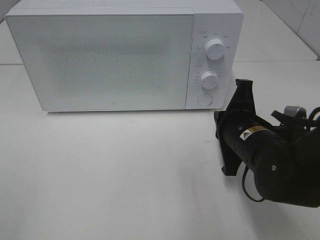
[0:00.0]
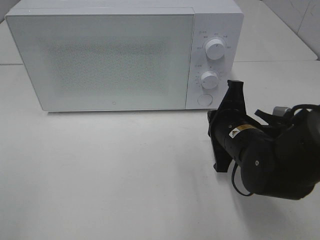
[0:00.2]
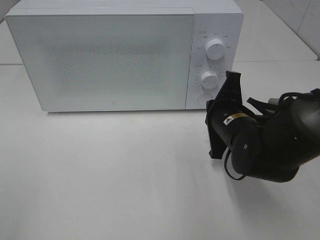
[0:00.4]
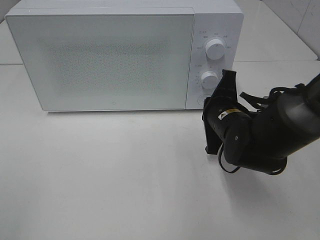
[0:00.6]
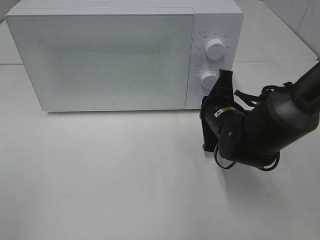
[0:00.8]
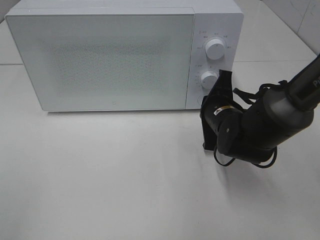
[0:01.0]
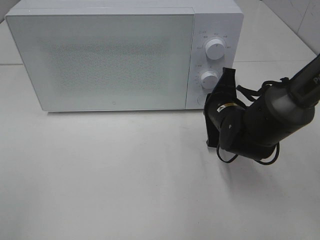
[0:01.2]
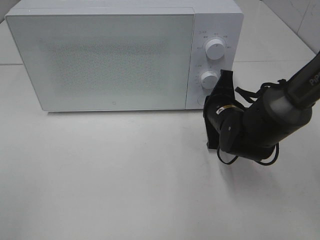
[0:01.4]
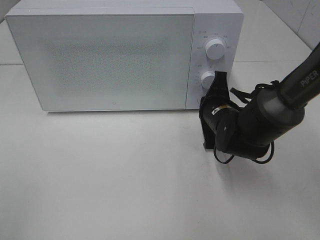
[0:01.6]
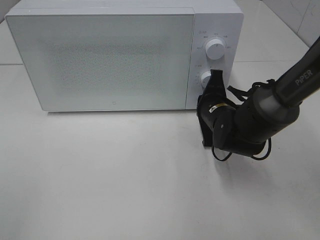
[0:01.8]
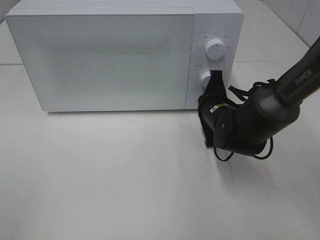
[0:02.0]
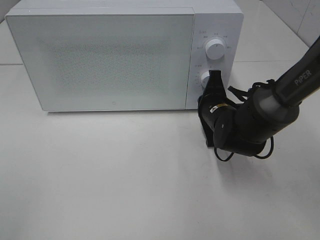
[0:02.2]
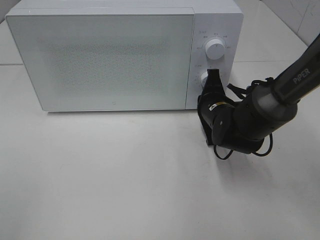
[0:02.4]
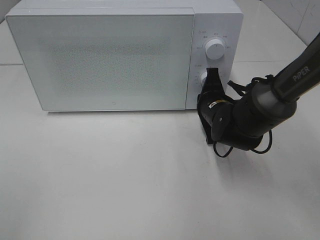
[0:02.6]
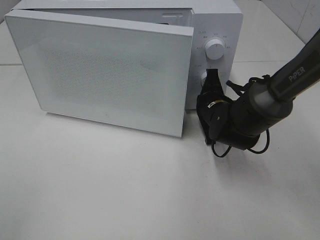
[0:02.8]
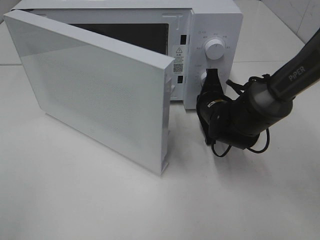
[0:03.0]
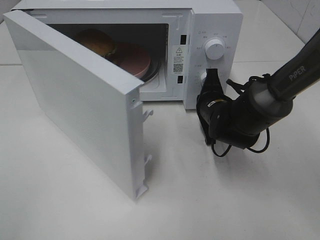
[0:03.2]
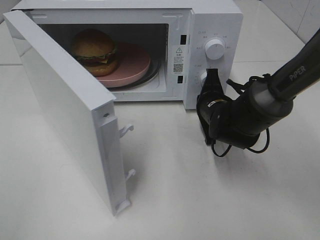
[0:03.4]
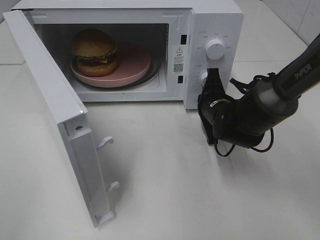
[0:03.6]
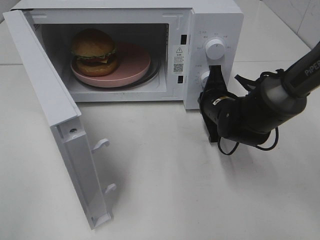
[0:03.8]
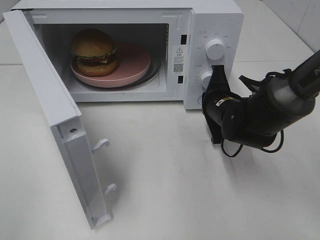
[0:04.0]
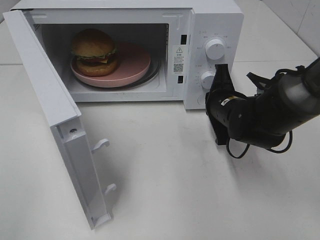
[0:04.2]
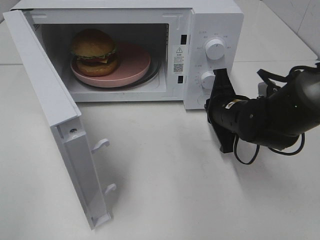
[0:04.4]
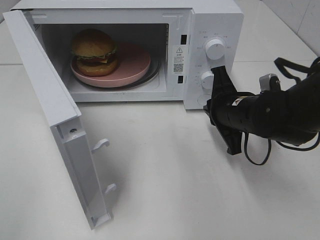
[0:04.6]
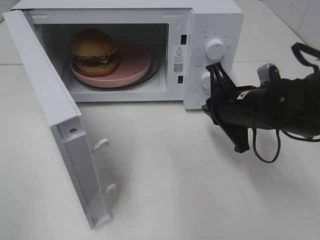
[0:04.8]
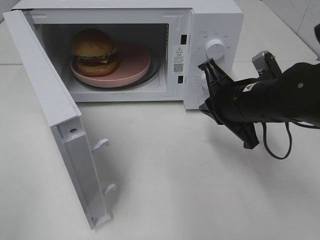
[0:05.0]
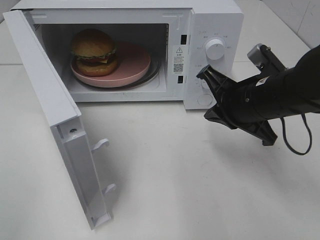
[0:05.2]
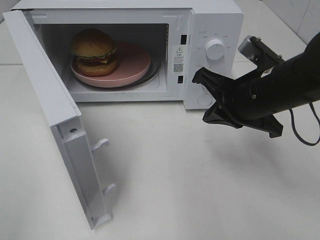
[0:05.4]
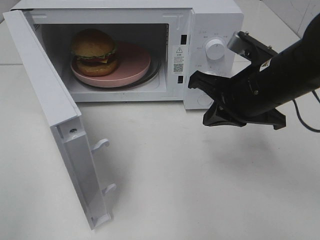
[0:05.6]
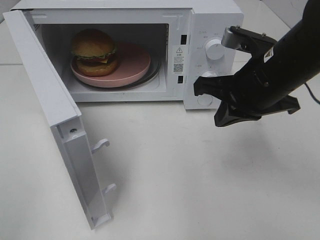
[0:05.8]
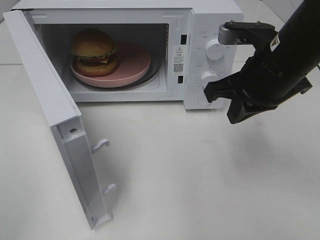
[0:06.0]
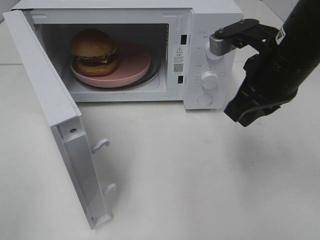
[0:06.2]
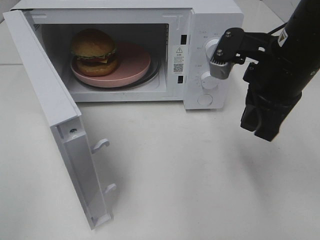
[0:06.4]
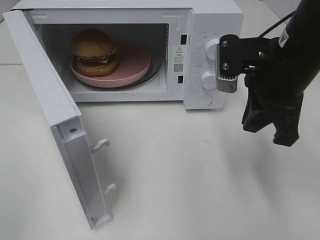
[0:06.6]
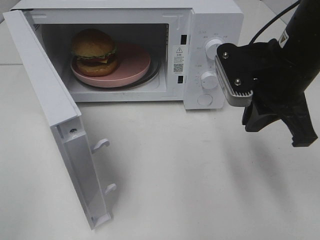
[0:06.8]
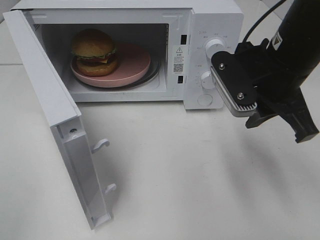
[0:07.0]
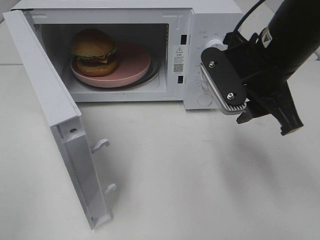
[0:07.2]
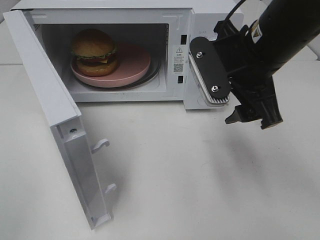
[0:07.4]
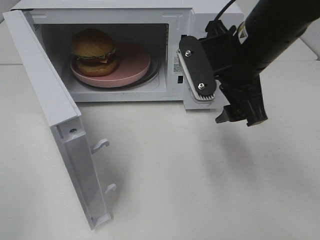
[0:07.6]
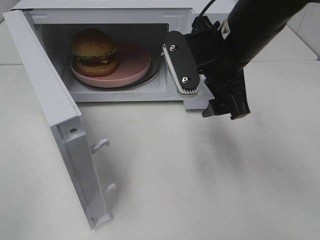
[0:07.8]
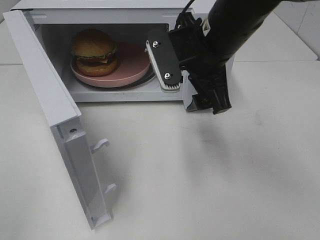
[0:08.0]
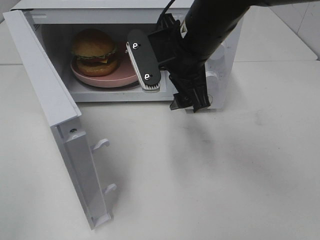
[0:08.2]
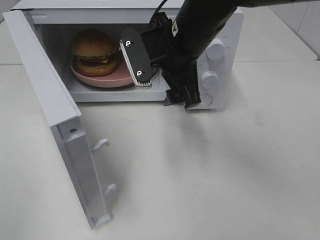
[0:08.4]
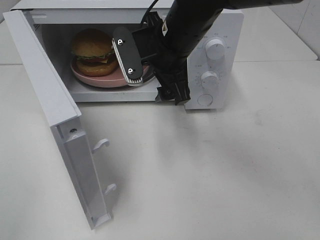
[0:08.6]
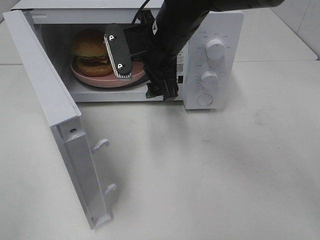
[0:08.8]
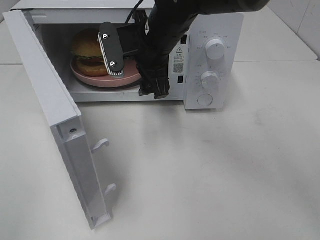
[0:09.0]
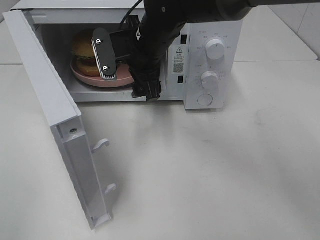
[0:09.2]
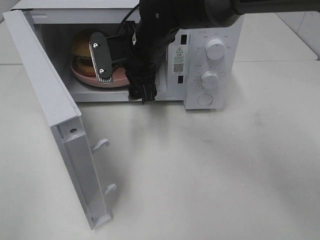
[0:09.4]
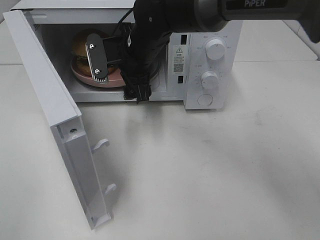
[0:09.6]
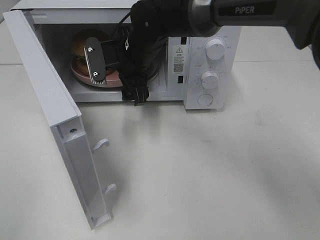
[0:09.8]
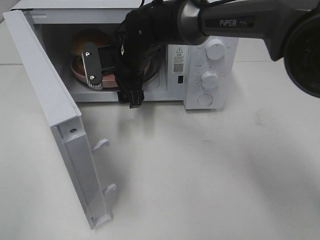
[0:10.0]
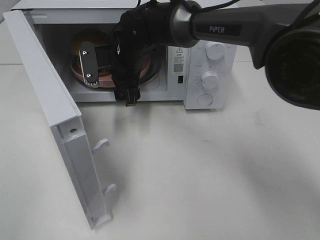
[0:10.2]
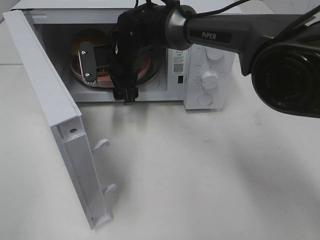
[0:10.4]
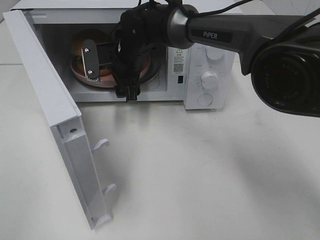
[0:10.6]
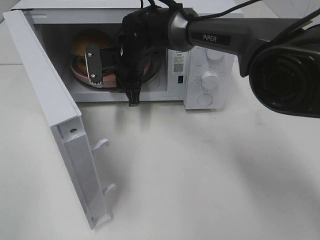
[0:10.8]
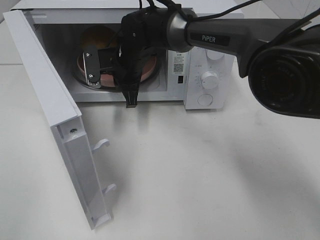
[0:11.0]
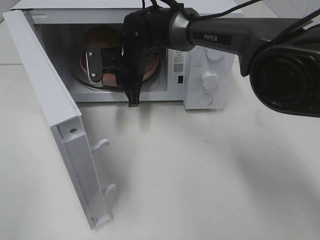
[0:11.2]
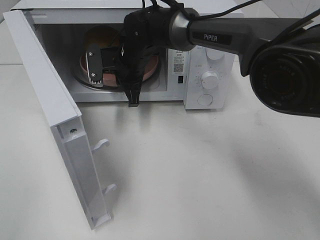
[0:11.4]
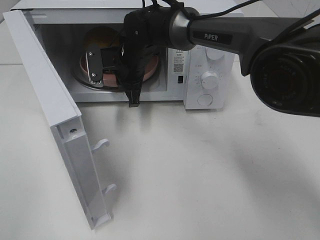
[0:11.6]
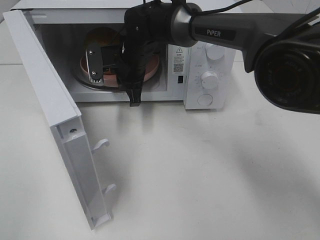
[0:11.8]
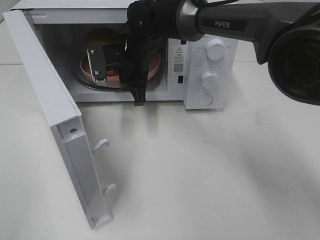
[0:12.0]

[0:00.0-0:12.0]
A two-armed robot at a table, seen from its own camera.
Task of the whole recording: Heat the burger.
Step, 0:00.0 to 0:04.4: Right hand: press the switch.
Step, 0:04.6 to 0:10.8: Right hand: grab the plate with the hamburger.
0:00.0 to 0:01.6: The right gripper goes about 10 cm forward.
0:03.0 to 0:04.4: The right gripper ends up approximately 5 cm from where it was.
0:04.4 to 0:06.0: The right gripper heads upward, covering roughly 15 cm.
0:06.0 to 0:07.6: The right gripper opens.
0:07.6 to 0:09.0: The right gripper moves to the left and forward, approximately 15 cm.
0:09.0 to 0:10.4: The right gripper is displaced forward, downward and to the left by about 10 cm.
0:10.4 to 0:12.0: The right gripper closes up.

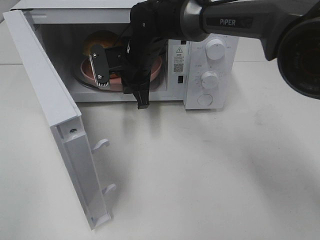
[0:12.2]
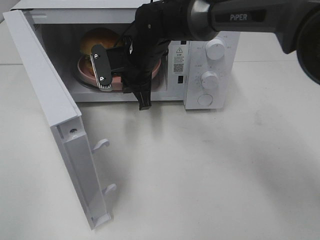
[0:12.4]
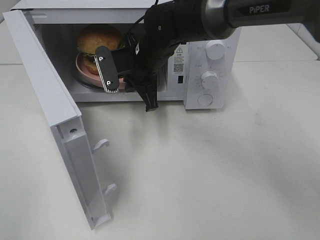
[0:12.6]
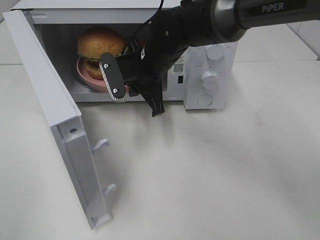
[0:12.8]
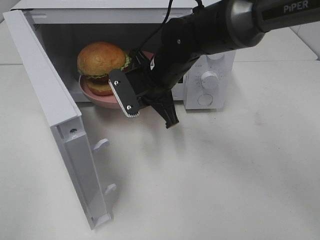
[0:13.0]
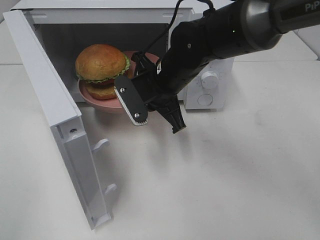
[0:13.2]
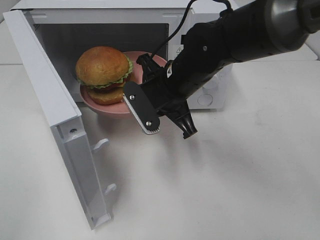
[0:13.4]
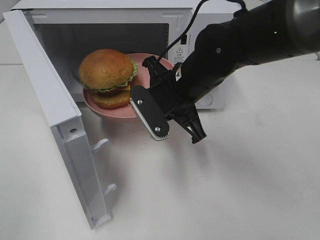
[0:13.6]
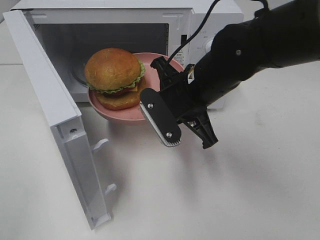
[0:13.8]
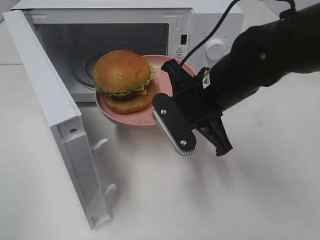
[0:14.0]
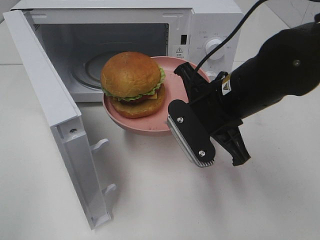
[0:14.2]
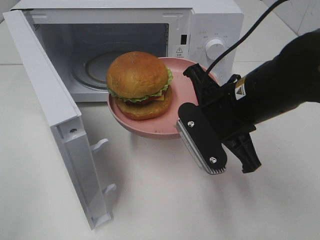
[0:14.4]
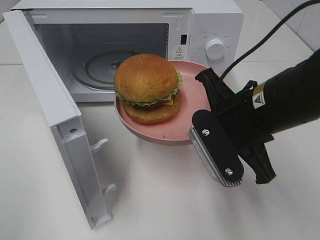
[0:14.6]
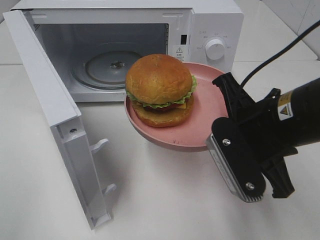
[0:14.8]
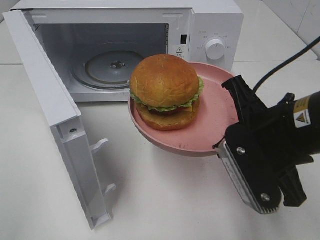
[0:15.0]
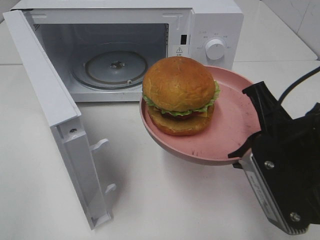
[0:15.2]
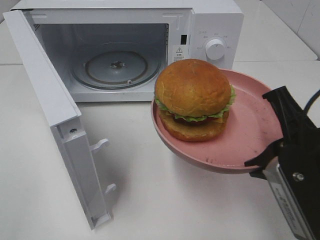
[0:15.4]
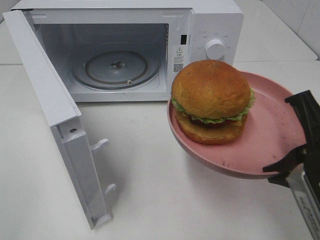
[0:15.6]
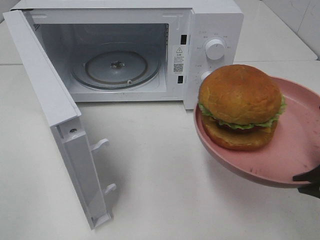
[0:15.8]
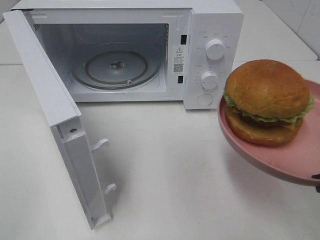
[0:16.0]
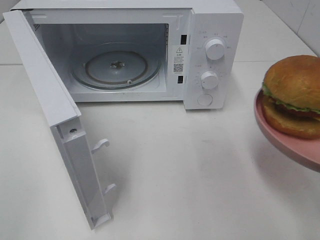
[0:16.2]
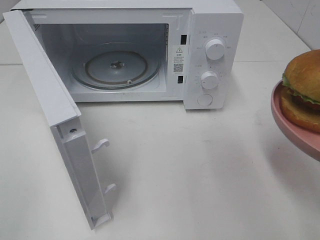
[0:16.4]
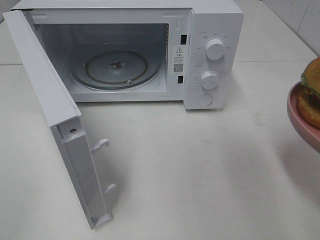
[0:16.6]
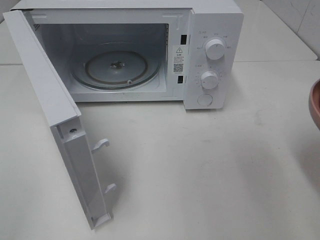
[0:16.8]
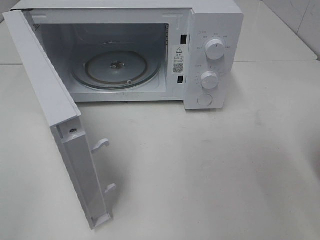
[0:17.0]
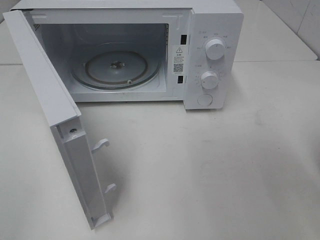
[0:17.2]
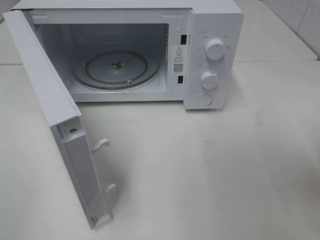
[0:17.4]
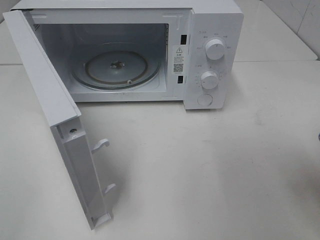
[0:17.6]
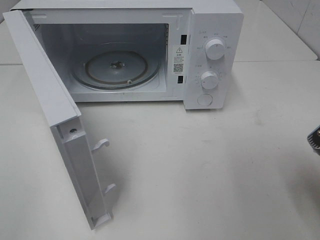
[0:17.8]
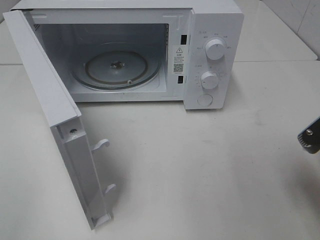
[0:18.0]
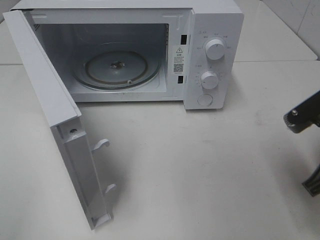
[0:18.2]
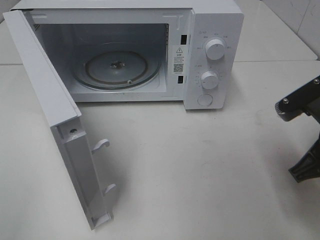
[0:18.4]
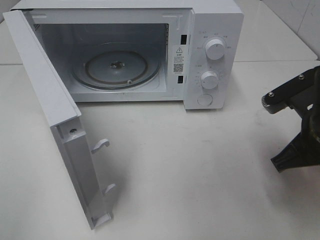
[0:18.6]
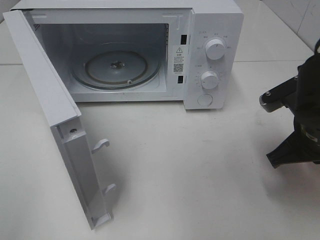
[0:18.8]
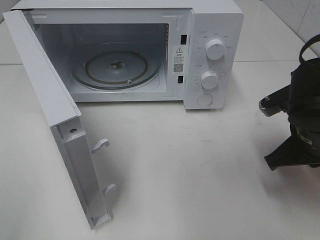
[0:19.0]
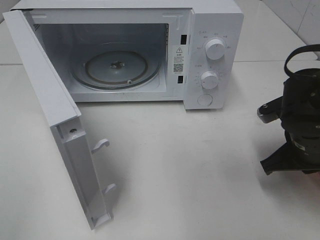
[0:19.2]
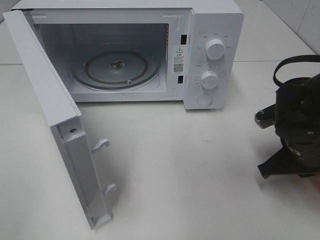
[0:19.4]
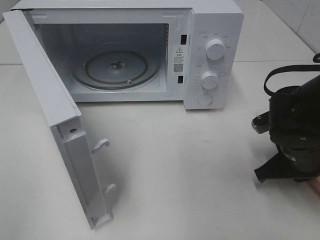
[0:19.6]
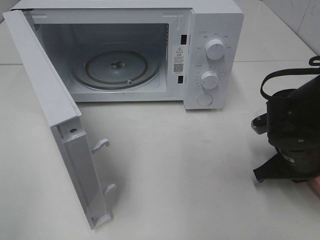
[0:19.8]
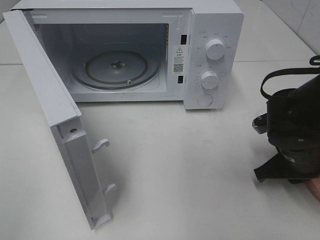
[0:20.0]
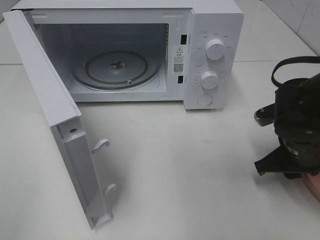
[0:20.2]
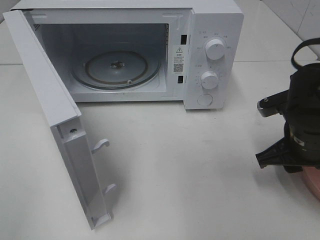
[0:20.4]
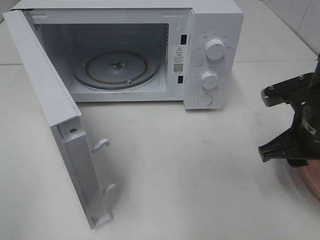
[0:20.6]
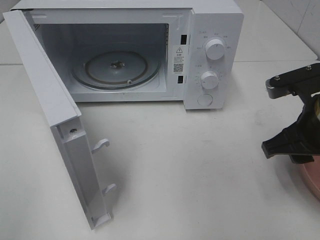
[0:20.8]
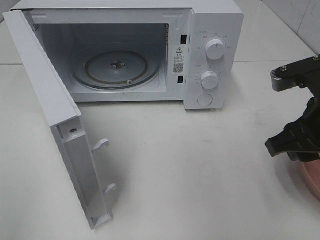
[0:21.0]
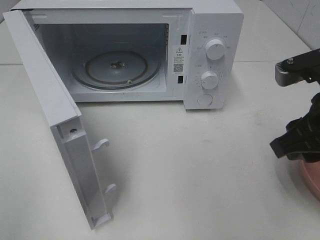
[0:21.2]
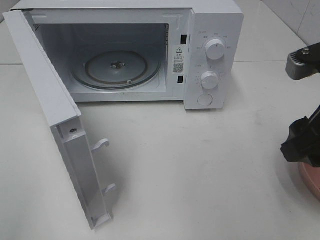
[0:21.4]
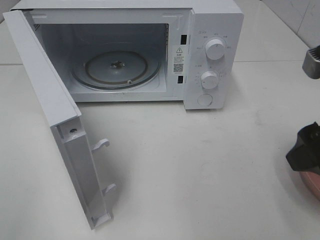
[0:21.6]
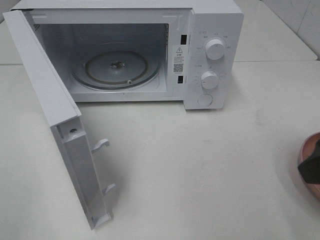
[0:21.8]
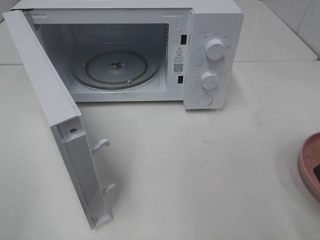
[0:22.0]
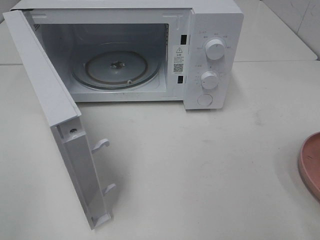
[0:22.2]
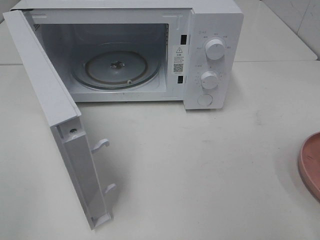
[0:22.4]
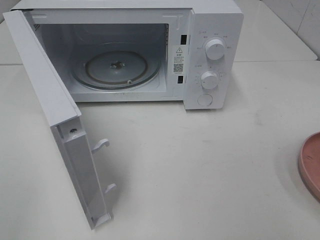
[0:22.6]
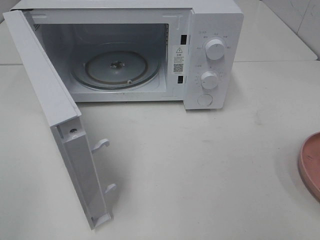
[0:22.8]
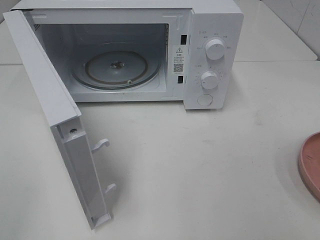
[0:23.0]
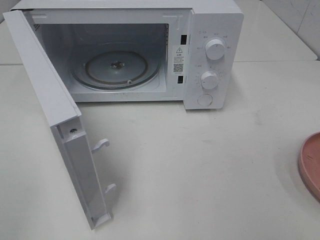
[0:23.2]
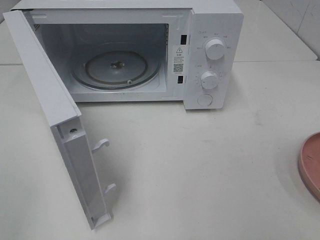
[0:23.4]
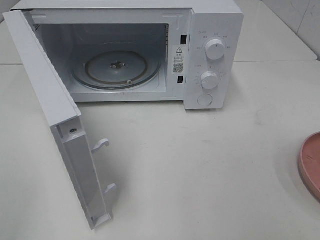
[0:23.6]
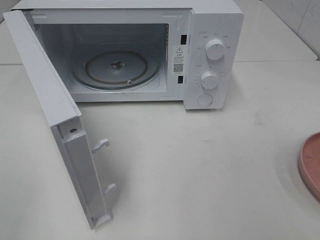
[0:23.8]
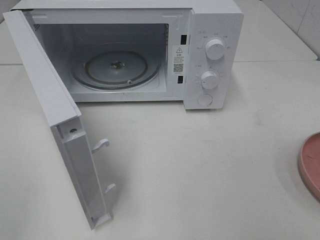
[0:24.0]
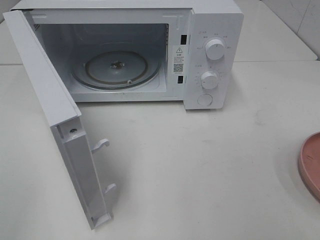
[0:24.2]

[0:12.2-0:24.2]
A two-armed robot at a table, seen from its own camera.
Task of the whole recording: Heat the burger.
Step, 0:12.2 to 0:20.2: Right hand: place the plate on the table.
0:12.2 to 0:13.8: The right gripper moves backward and to the right, some 15 cm.
0:13.8 to 0:15.2: The right gripper is displaced backward and to the right by approximately 15 cm.
0:15.2 to 0:16.6: The right gripper heads to the right and backward, covering some 10 cm.
0:16.6 to 0:18.2: The right gripper is displaced forward by some 5 cm.
0:18.2 to 0:19.8: The right gripper heads downward and forward, covering roughly 10 cm.
0:19.8 to 0:21.2: The right gripper heads upward, covering roughly 15 cm, and opens.
0:21.2 to 0:22.6: The right gripper goes roughly 15 cm backward and to the right.
